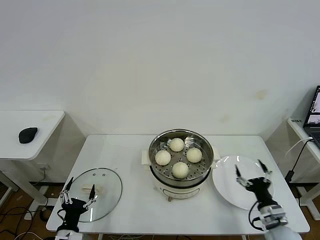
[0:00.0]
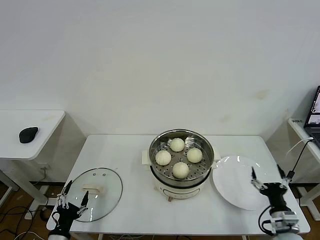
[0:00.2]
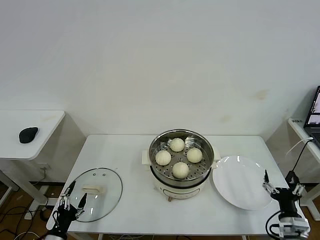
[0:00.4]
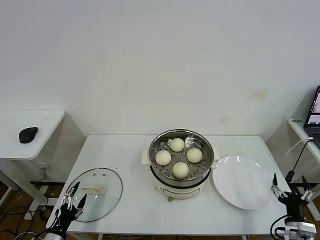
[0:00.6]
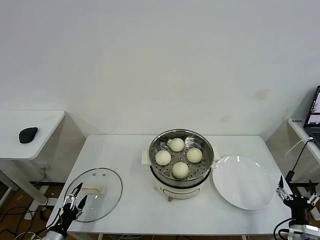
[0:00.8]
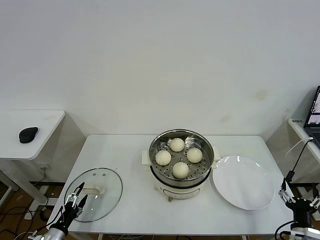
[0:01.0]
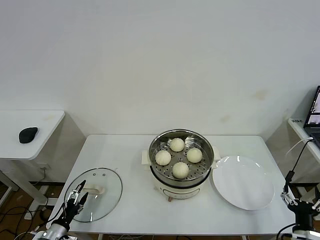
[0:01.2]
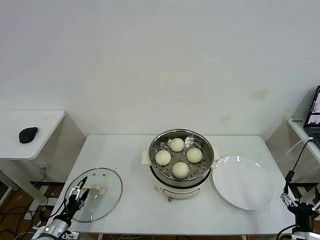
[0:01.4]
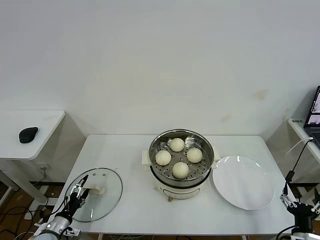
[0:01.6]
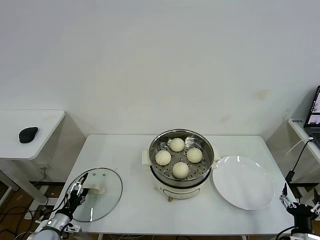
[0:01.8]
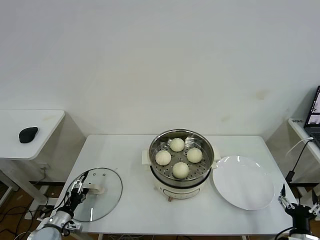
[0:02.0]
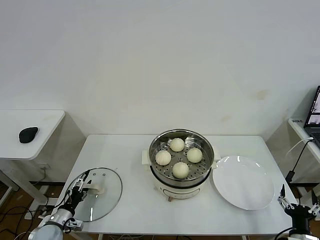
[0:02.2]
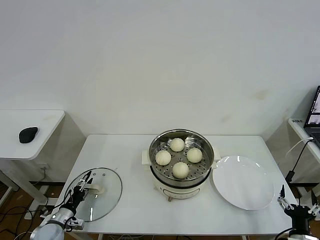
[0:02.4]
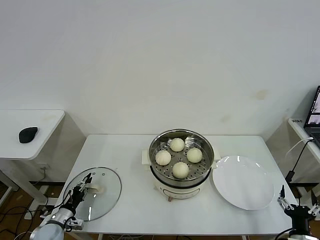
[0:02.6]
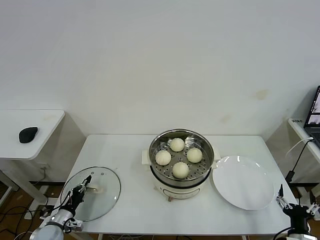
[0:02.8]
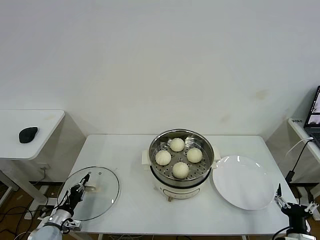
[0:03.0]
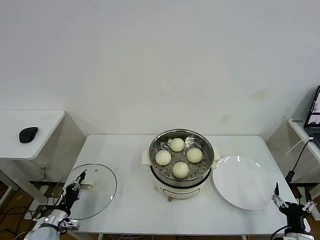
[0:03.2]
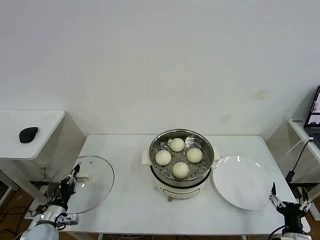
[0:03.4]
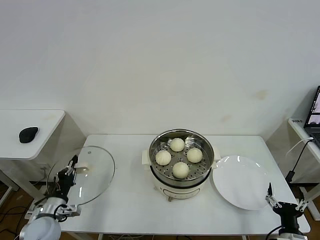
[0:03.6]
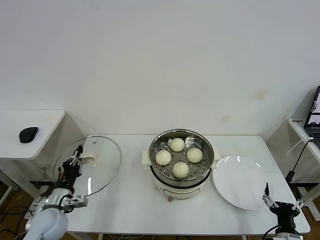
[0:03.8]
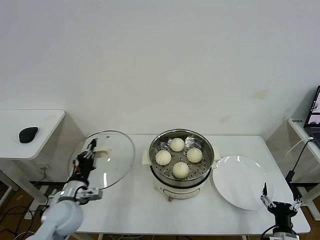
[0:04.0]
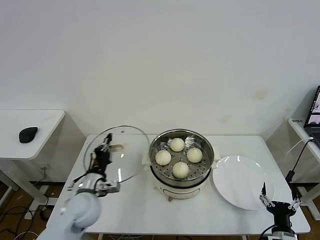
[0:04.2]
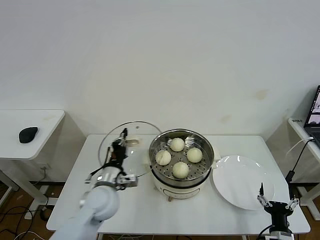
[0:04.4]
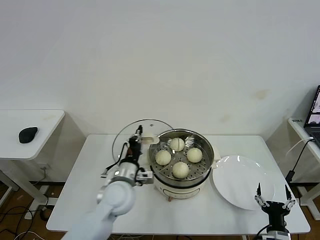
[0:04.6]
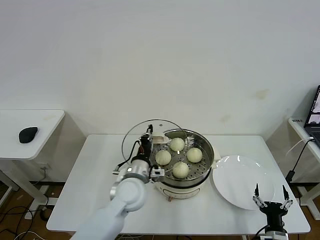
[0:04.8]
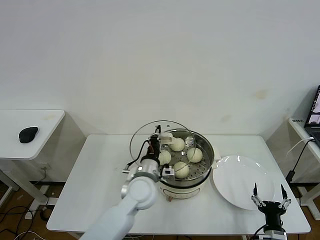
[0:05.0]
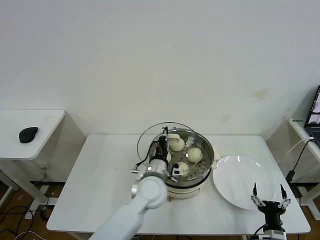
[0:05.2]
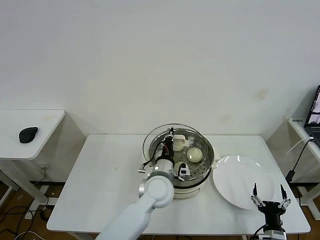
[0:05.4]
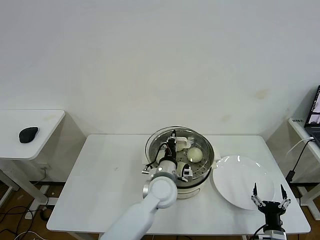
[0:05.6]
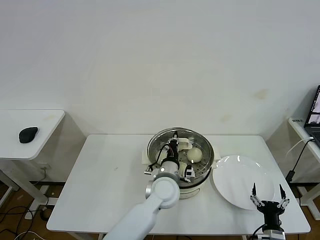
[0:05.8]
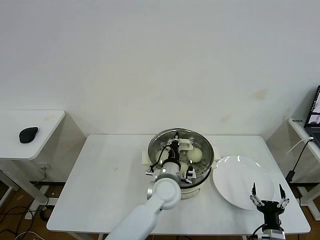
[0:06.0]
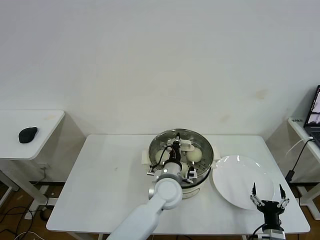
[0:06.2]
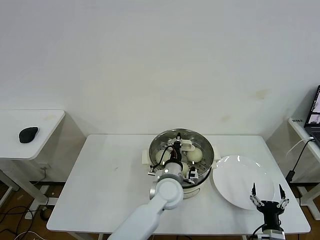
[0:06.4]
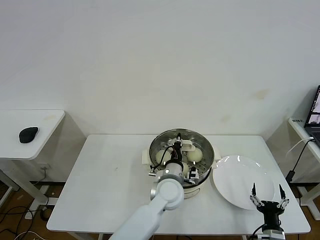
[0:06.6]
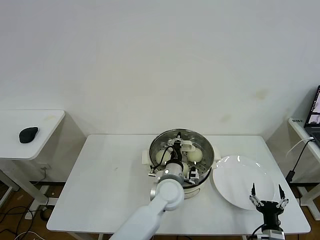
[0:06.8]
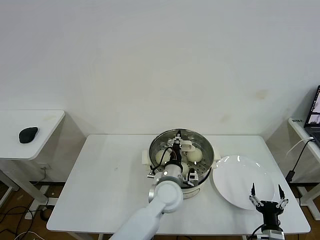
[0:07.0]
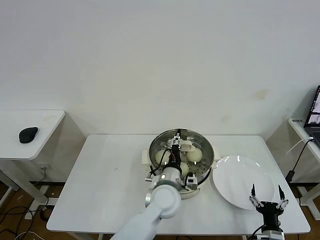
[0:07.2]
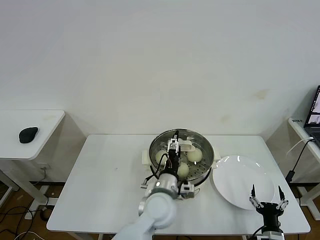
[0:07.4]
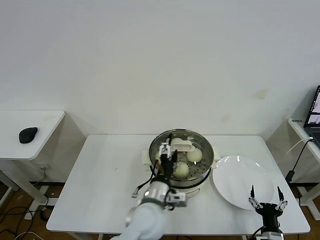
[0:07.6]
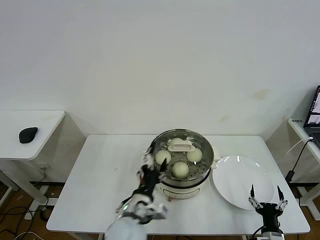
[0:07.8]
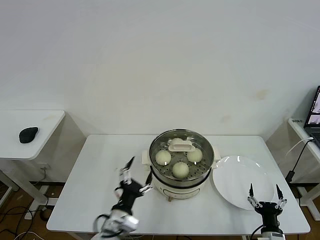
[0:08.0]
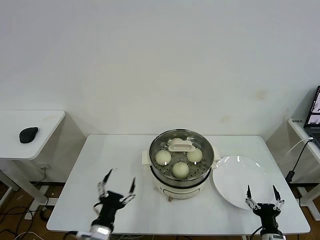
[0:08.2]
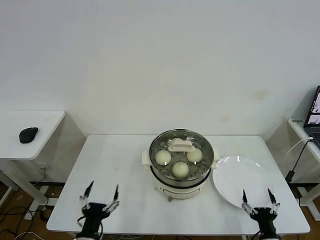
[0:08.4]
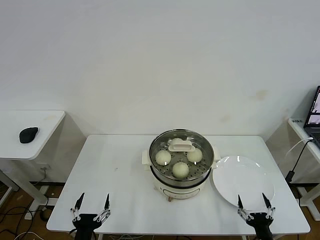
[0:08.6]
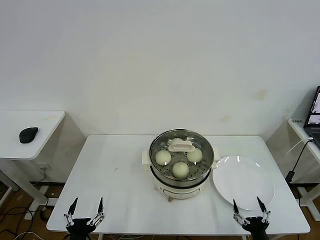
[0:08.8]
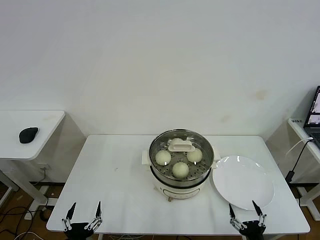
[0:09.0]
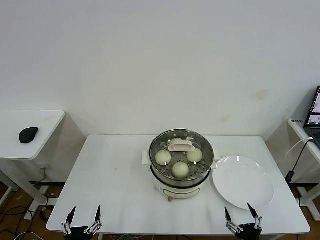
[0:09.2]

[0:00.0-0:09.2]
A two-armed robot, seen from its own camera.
Task of the whole recording: take steamed baozi put them in steamer then cover it.
Step, 0:00.0 to 0:03.0: Grasp the pot lid with left gripper.
Step, 0:03.2 to 0:07.6: Place the pot lid on the steamer with left gripper.
0:00.0 to 0:01.6: The left gripper moves to the left, forward and downward, roughly 15 cm; the right gripper heads backward, covering some 10 cm.
0:01.6 to 0:03.0: The left gripper closes its fingers.
0:03.0 to 0:04.6: The left gripper travels to the right and upward by about 35 cm.
0:04.6 to 0:06.2: The left gripper heads to the right, covering about 15 cm.
0:06.2 to 0:07.6: The left gripper shifts approximately 10 cm backward, and opens.
0:07.6 to 0:09.2: The left gripper heads to the left, backward and downward, covering roughly 35 cm; the right gripper travels backward by some 5 cm.

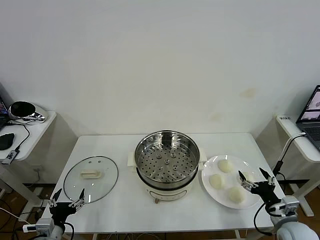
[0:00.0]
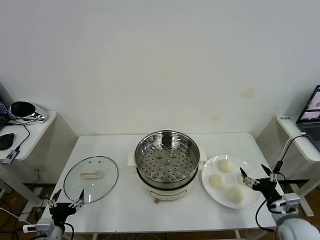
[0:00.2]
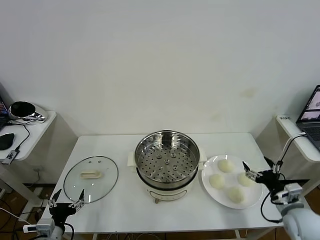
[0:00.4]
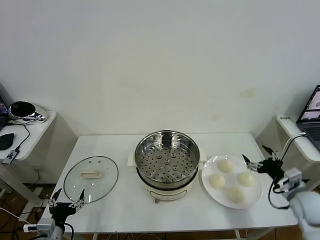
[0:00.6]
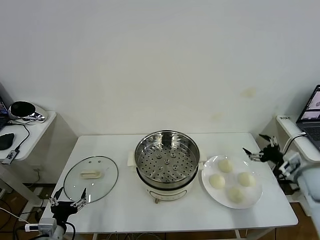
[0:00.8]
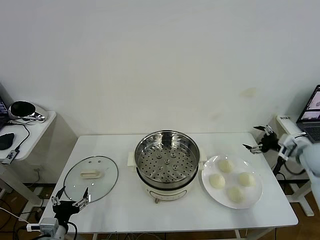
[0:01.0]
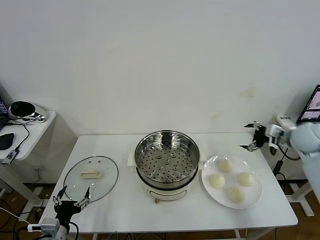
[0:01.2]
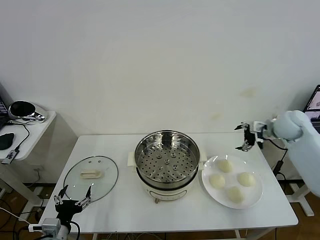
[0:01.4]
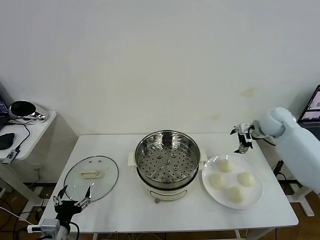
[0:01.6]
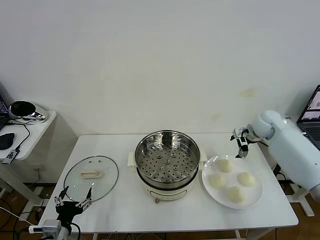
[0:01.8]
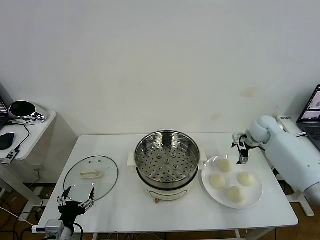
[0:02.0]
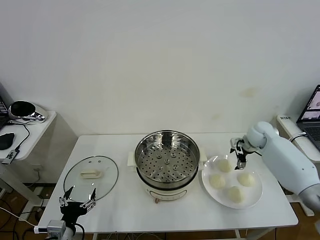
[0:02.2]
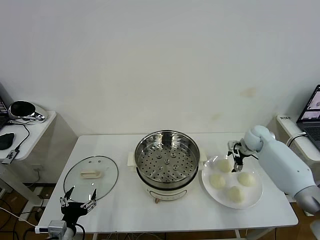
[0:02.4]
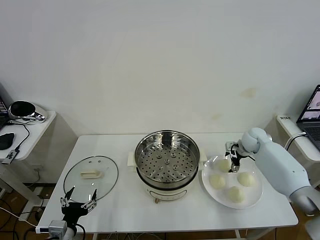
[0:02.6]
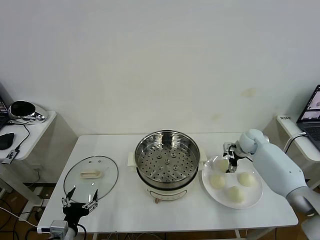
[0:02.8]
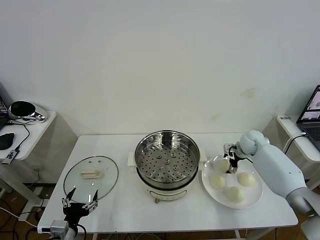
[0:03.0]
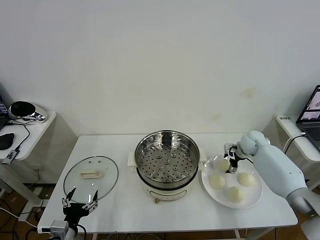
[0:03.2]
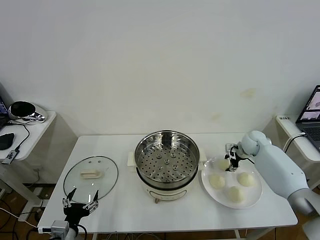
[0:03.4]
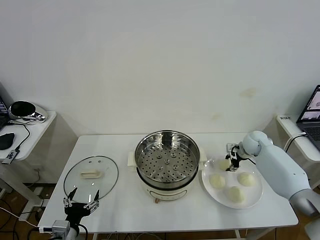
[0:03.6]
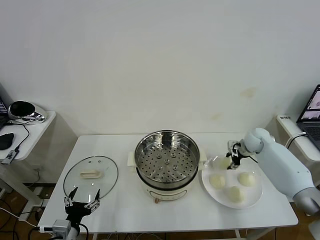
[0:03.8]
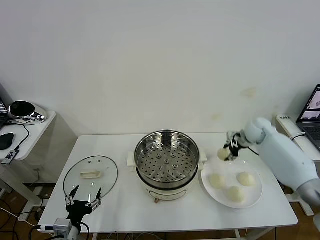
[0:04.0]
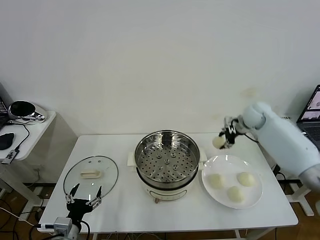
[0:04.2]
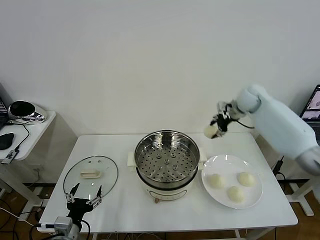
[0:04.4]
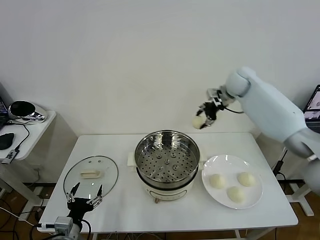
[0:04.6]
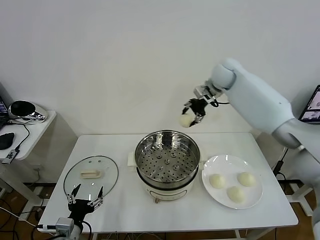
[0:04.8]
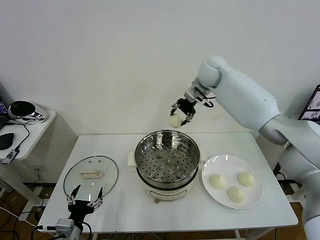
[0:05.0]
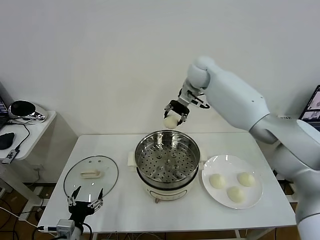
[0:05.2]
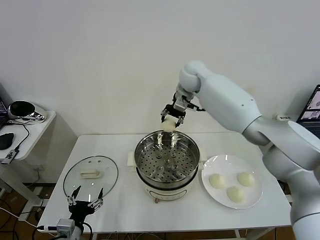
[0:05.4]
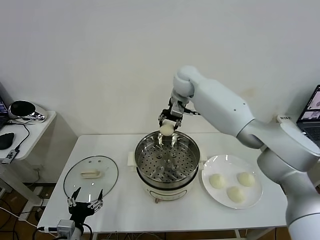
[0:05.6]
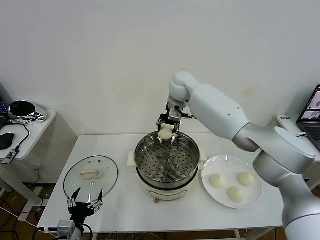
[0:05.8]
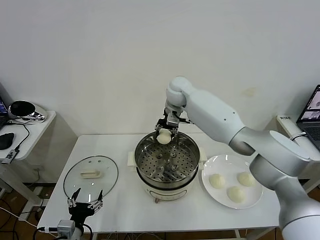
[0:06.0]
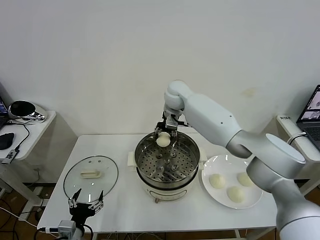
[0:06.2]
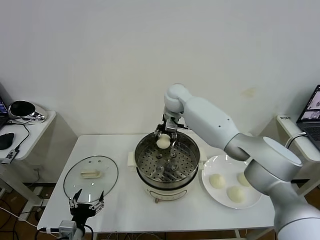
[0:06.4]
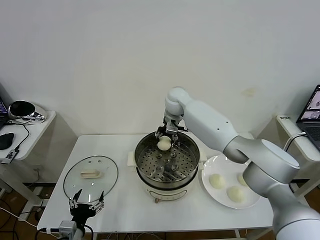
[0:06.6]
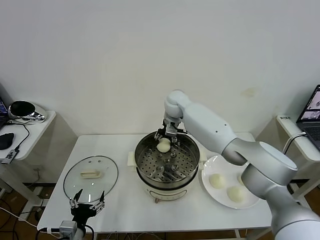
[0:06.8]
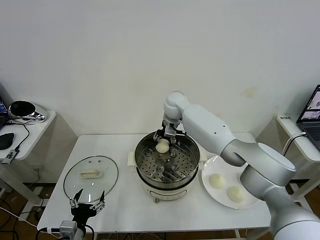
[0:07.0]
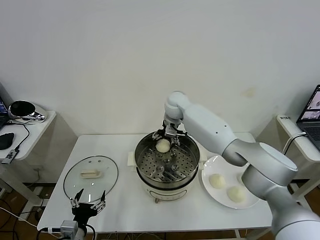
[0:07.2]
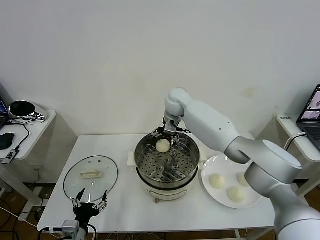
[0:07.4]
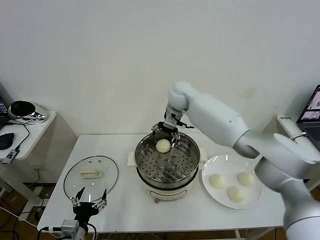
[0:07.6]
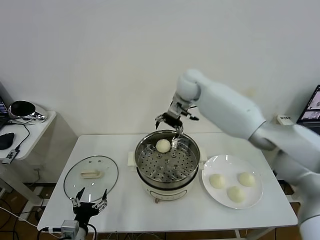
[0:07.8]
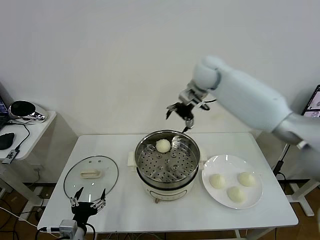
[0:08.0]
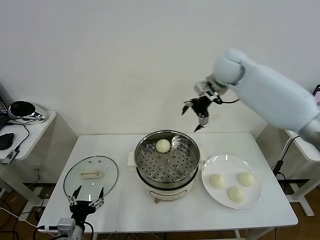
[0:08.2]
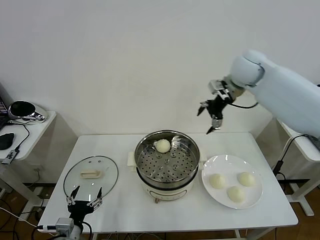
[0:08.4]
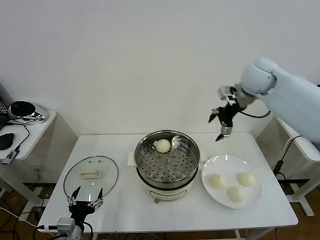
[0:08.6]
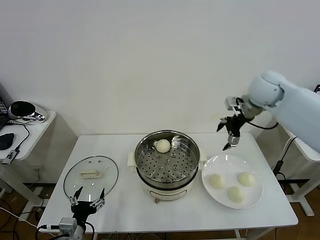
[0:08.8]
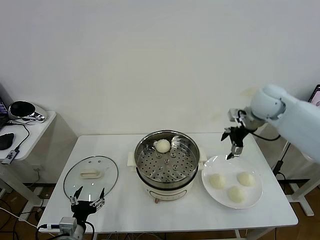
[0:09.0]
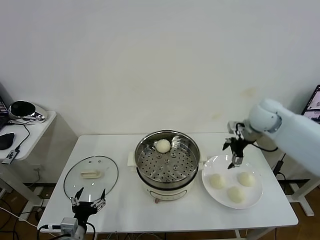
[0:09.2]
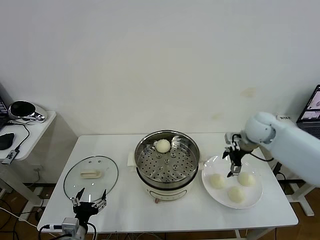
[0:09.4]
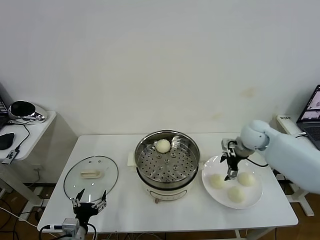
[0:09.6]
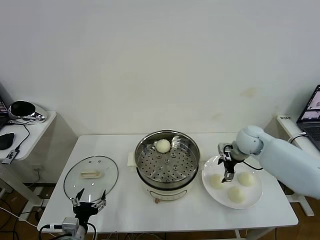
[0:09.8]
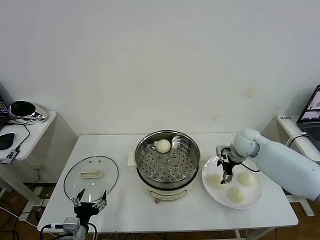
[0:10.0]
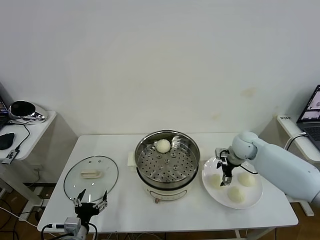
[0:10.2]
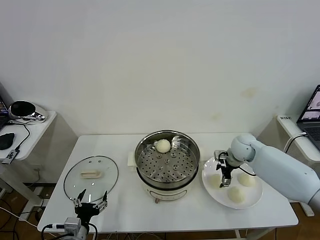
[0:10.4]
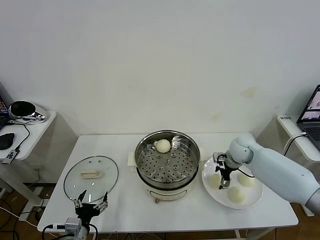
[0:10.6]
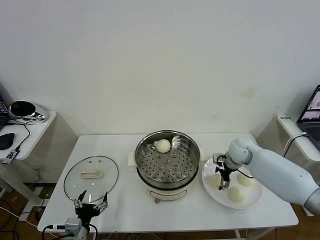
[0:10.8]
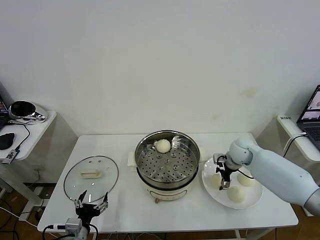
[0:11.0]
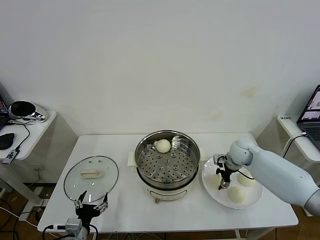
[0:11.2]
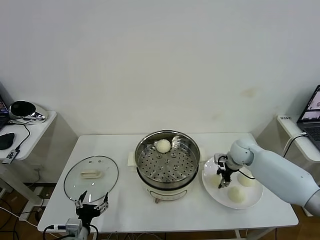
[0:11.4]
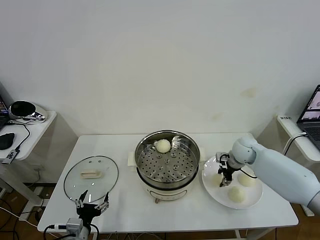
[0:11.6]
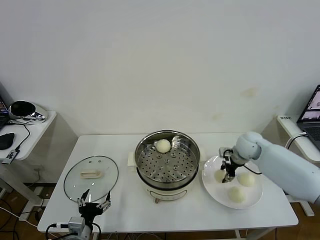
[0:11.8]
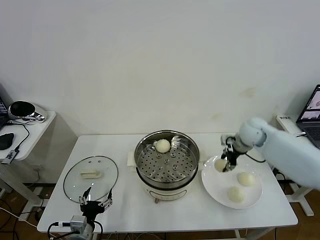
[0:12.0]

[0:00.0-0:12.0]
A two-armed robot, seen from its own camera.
Task of the whole recording: take steamed baozi put them in steamer then cover it.
Step, 0:00.0 to 0:03.4: Grasp the baozi in the plate with right gripper.
Step, 0:03.8 to 0:07.4: Place the baozi on the steamer with right gripper.
Step, 0:07.6 to 0:11.4: Grasp the baozi in the plate with right gripper.
0:01.6 to 0:03.0: The right gripper is displaced downward by roughly 10 cm.
0:03.0 to 0:04.4: The right gripper goes about 20 cm upward, and closes.
0:04.4 to 0:06.0: The right gripper travels to the left by about 25 cm.
0:06.0 to 0:07.6: The right gripper travels downward and back again, roughly 5 cm each way, and opens its fingers.
0:07.6 to 0:09.0: The right gripper heads to the right, covering about 25 cm.
0:09.0 to 0:10.4: The right gripper travels downward by approximately 15 cm.
0:10.4 to 0:12.0: The right gripper moves upward, some 10 cm, and closes up.

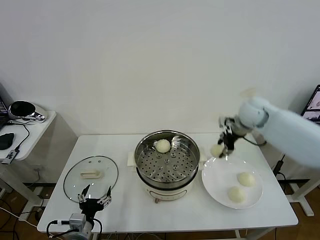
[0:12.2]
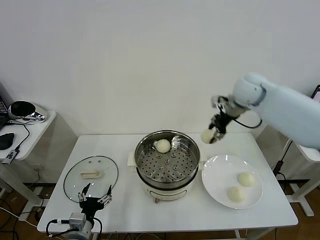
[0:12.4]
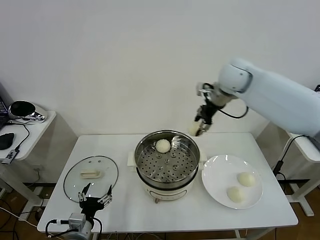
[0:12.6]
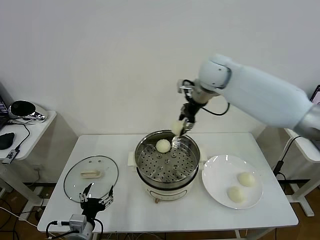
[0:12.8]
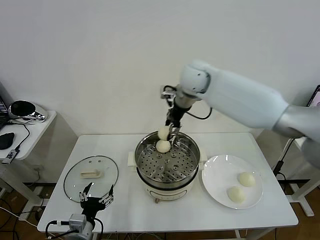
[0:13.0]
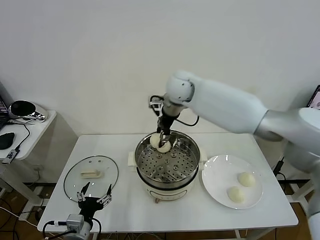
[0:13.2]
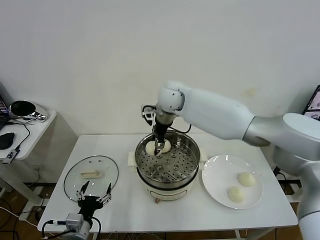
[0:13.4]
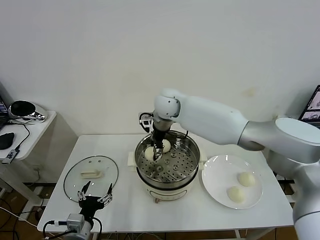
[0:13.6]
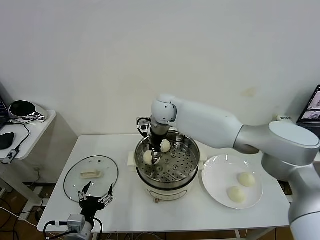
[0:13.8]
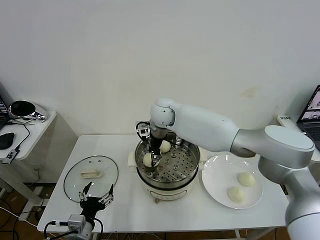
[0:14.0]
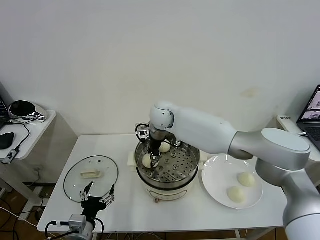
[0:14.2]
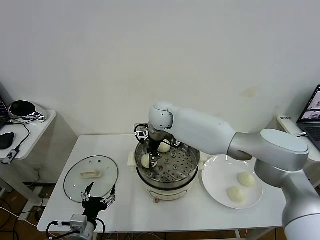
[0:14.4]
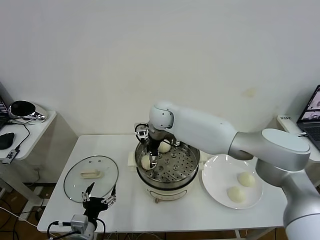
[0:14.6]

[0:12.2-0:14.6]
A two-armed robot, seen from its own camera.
Task of the whole recording: take steamed baozi put them in steamer then cover it.
0:12.2 to 0:13.4: The right gripper travels to the left by approximately 25 cm.
0:13.4 to 0:14.6: The right gripper moves downward, some 5 cm, and opens its fingers.
